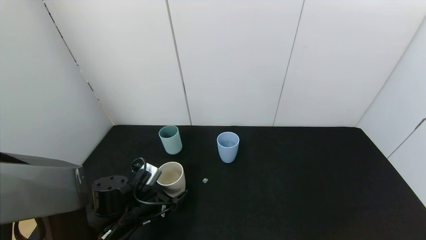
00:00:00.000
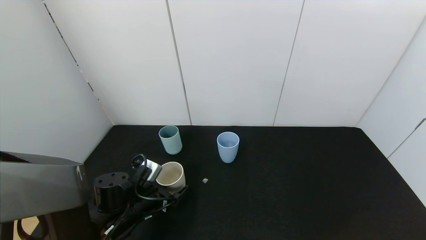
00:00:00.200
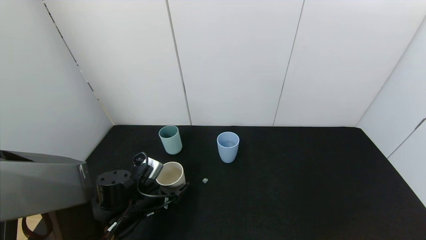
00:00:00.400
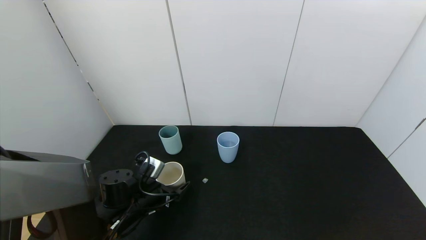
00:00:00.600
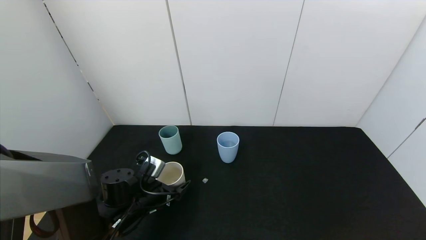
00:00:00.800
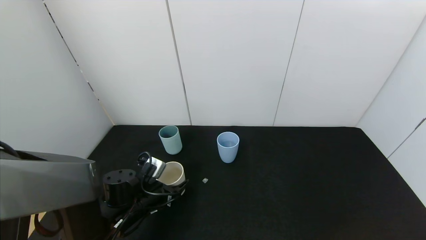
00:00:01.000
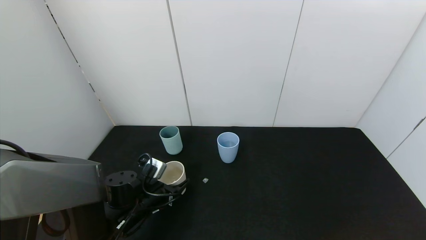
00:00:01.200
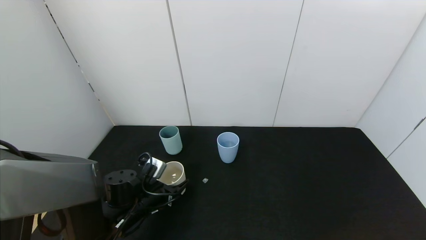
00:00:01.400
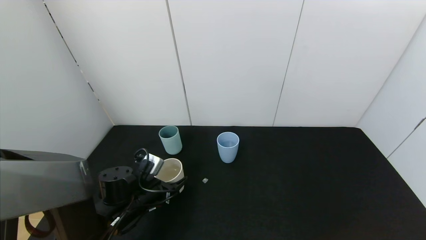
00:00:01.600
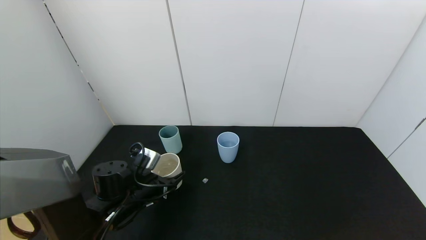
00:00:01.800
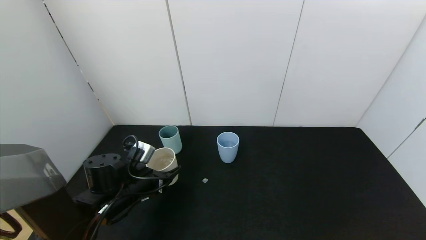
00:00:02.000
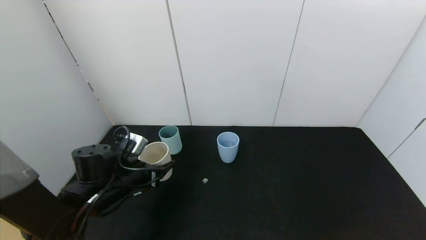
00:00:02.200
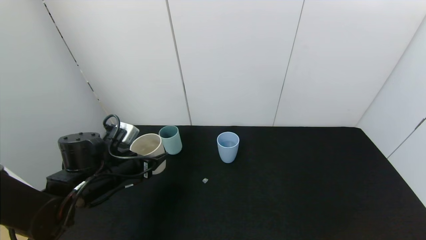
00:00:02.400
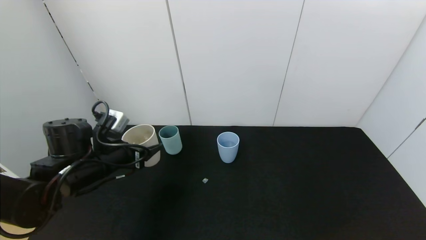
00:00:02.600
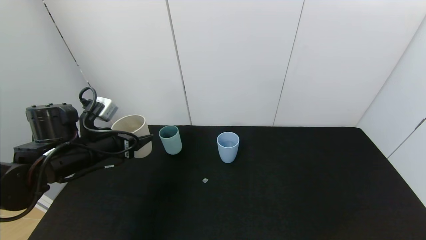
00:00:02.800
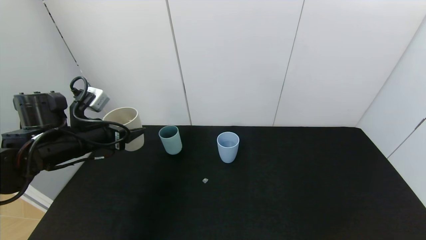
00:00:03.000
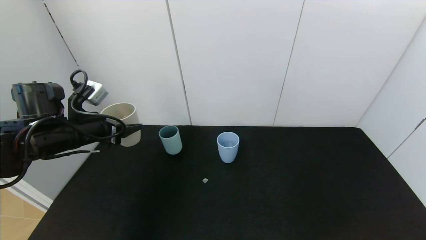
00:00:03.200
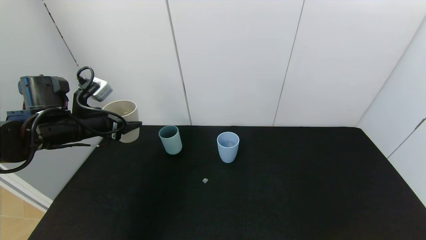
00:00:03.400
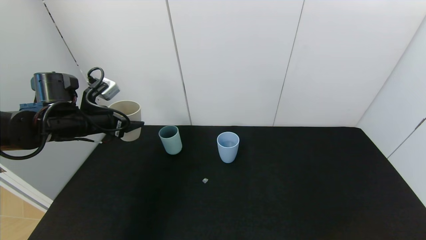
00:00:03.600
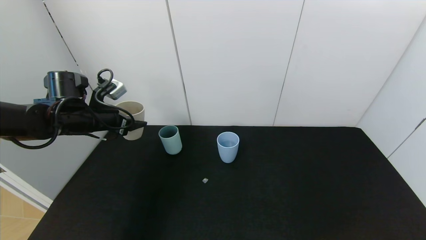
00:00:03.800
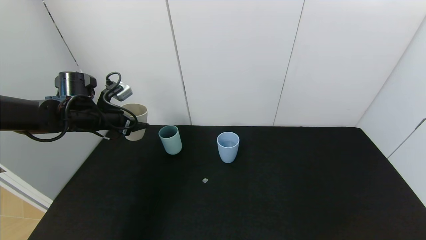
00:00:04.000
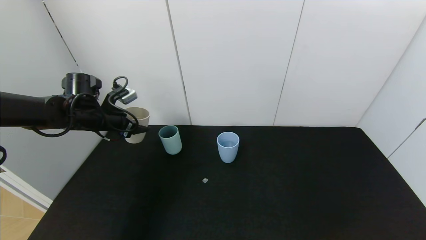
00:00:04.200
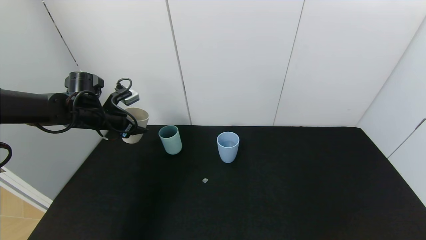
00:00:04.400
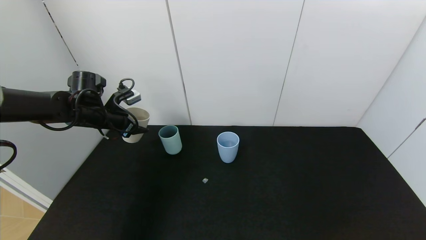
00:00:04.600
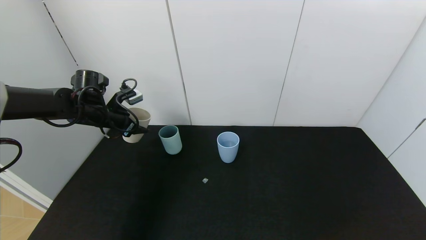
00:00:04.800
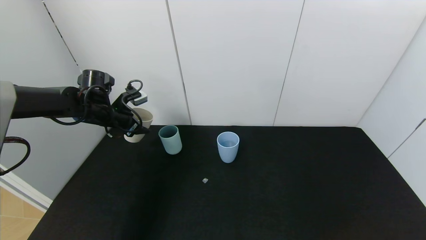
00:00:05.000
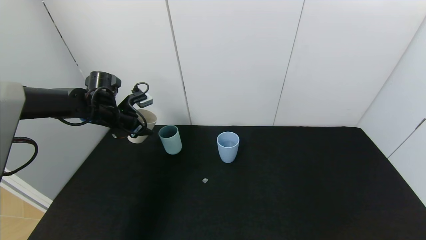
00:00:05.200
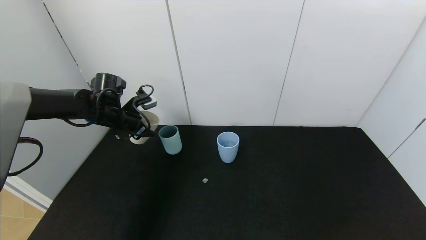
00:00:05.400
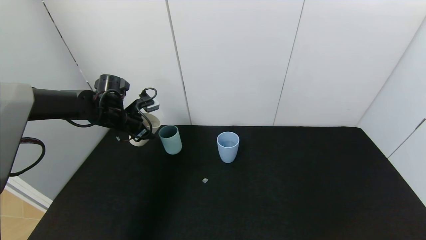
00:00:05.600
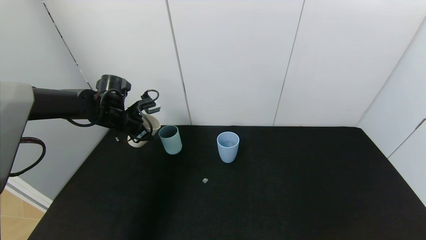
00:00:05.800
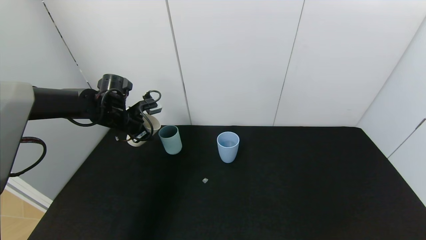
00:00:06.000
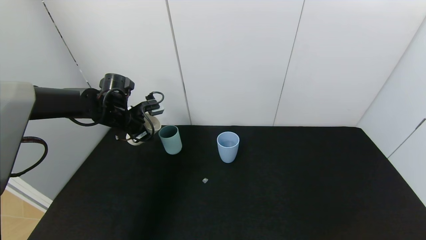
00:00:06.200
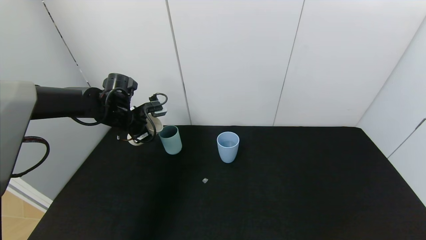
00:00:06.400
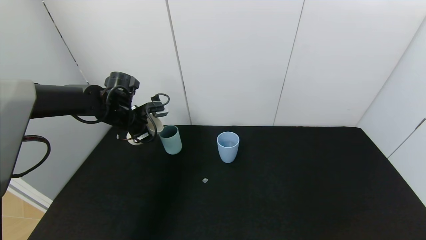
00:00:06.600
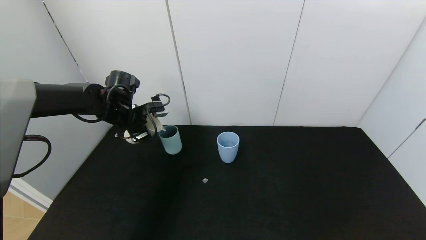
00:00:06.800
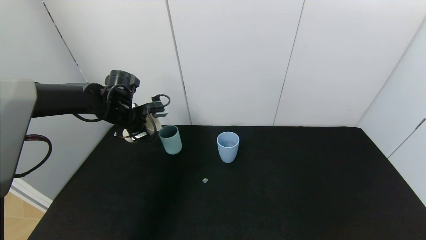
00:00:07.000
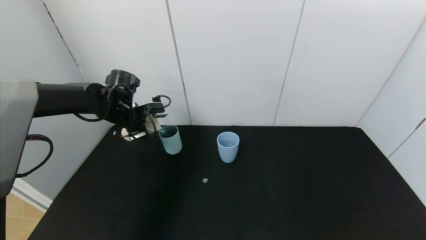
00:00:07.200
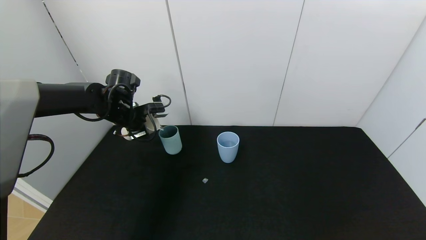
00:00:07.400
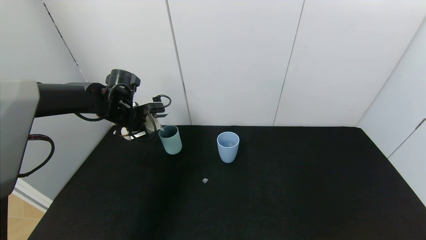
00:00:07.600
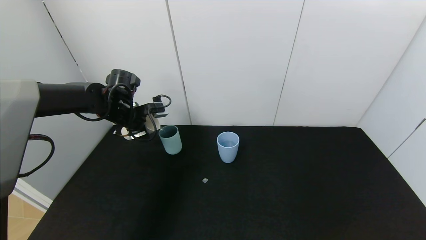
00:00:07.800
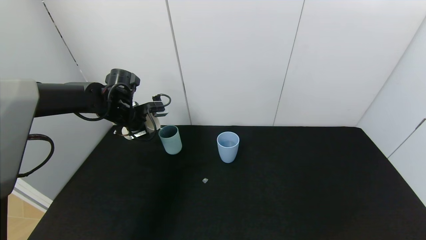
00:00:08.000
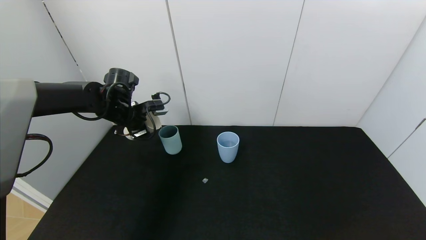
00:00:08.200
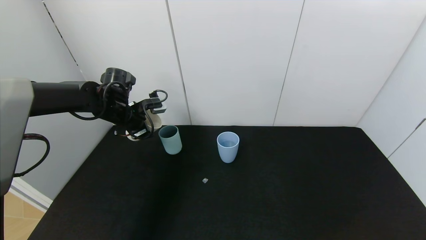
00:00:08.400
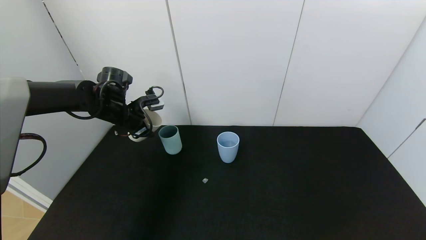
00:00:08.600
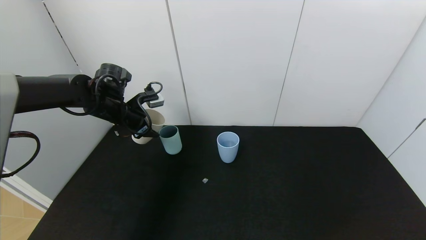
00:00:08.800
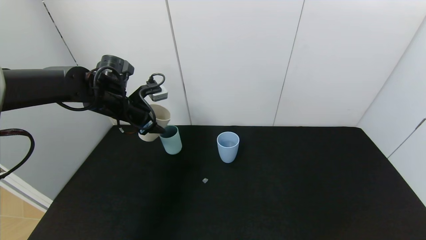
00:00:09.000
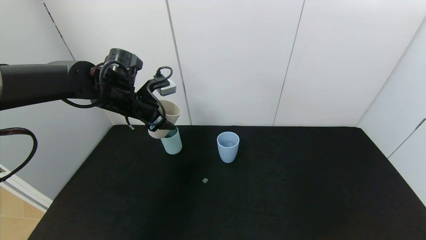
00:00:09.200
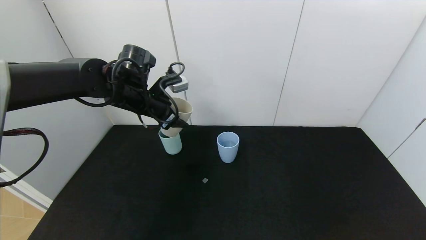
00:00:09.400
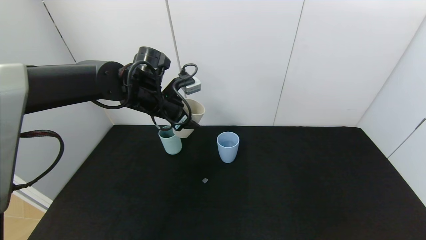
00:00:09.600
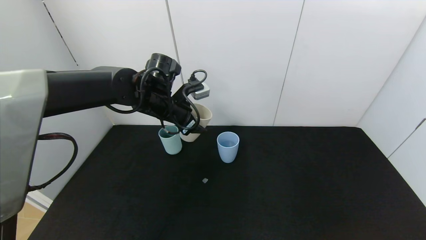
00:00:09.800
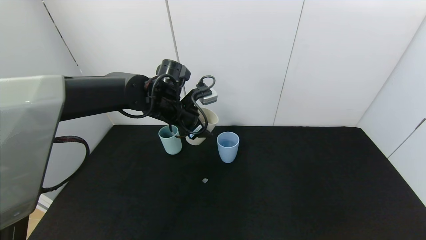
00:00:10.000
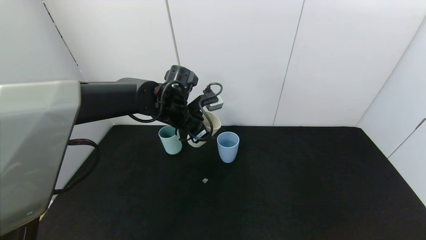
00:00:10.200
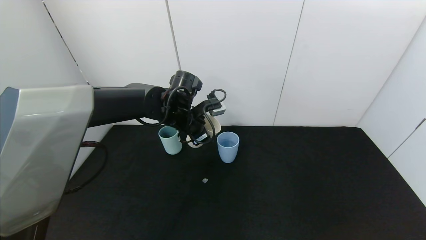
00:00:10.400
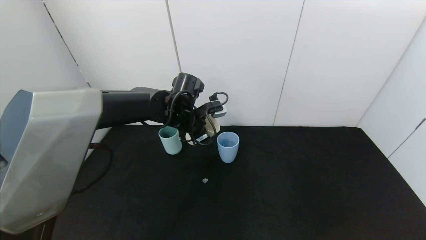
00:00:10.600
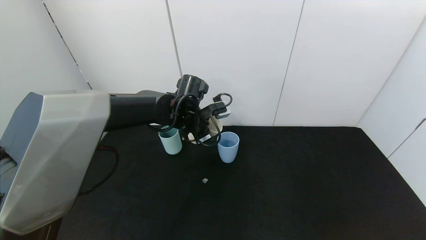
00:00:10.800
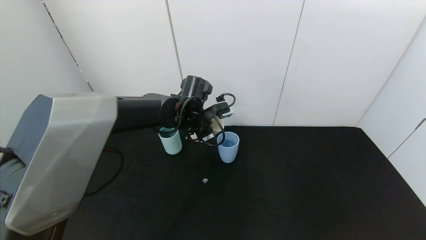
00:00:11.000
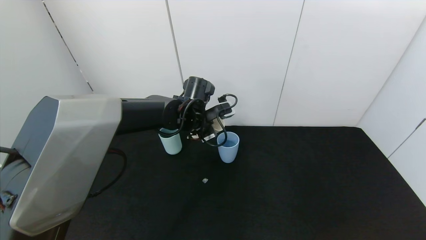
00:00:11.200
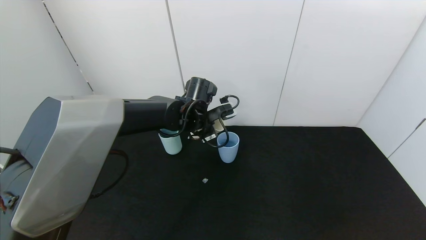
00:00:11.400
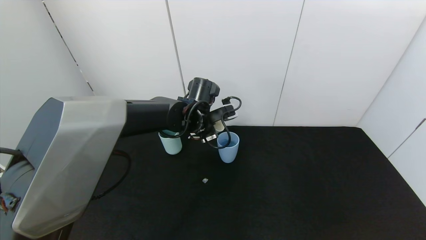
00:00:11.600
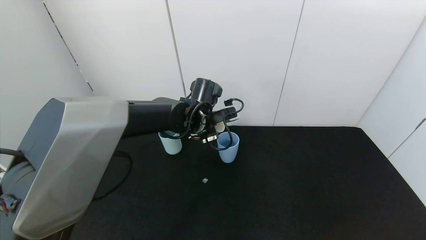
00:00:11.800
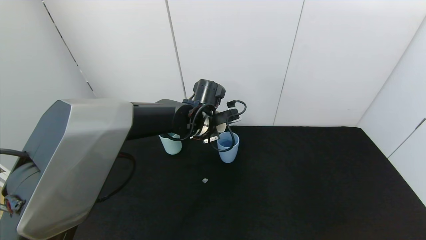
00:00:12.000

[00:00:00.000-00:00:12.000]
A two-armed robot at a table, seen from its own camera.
Task of the whole recording: use the gripper to pour the water into the other two cups on black table.
Step, 00:00:01.400 to 00:00:08.600: Pour water from white cup to green cup with the left gripper.
00:00:00.000 to 00:00:01.600: The left gripper closes up.
00:00:01.600 to 00:00:03.000: The left gripper heads upward and to the left, covering about 20 cm.
00:00:03.000 to 00:00:04.400: The left gripper shifts approximately 10 cm forward.
00:00:04.400 to 00:00:06.000: The grippers stay close to where they were, moving slightly.
00:00:06.000 to 00:00:07.600: The grippers make only small movements.
00:00:09.000 to 00:00:10.400: The left gripper travels to the right by roughly 15 cm.
00:00:10.400 to 00:00:12.000: The left gripper changes place by about 5 cm.

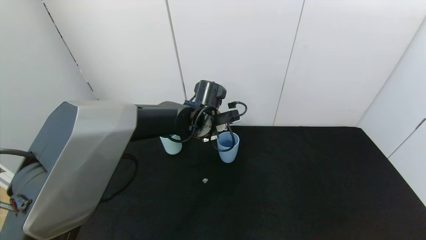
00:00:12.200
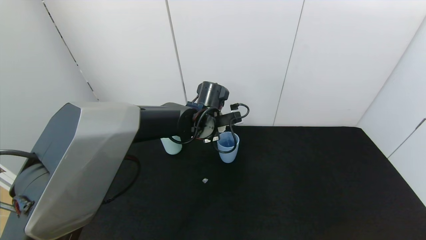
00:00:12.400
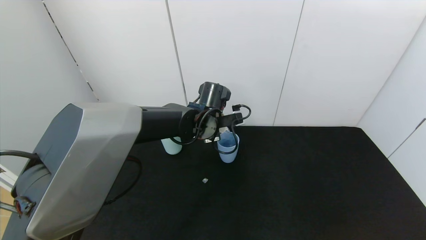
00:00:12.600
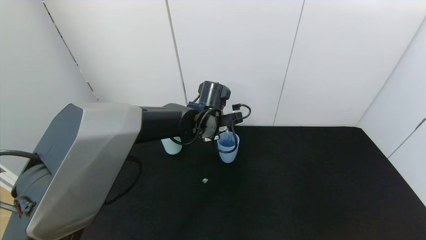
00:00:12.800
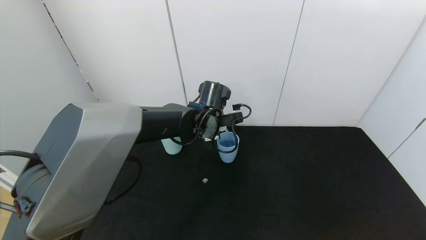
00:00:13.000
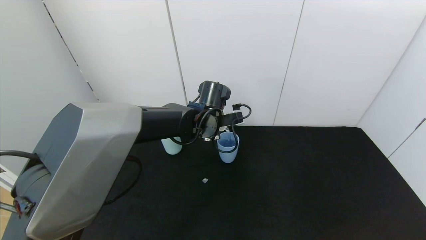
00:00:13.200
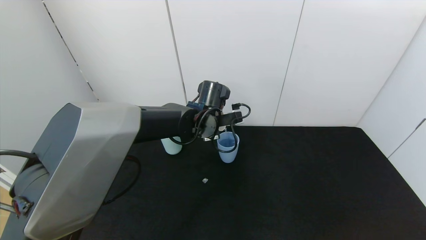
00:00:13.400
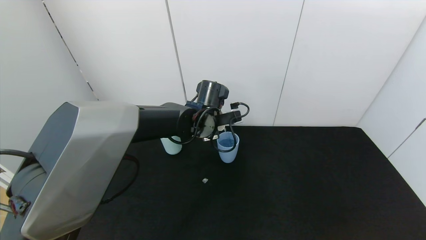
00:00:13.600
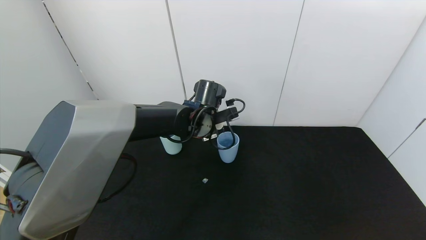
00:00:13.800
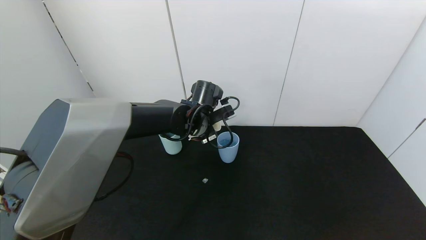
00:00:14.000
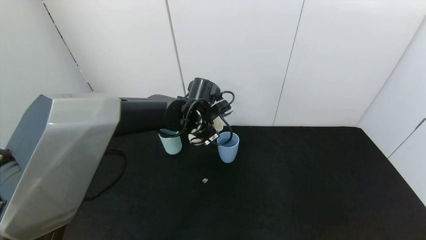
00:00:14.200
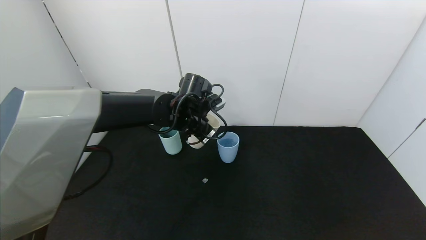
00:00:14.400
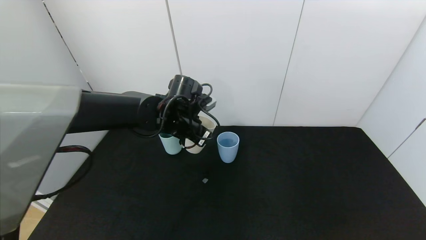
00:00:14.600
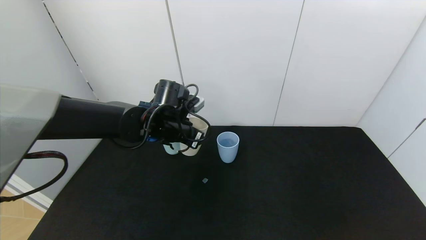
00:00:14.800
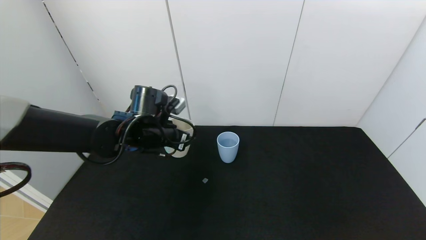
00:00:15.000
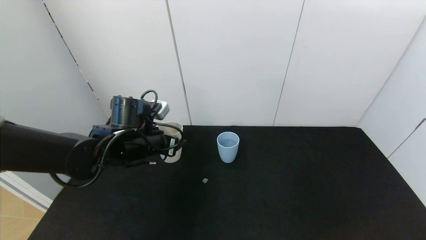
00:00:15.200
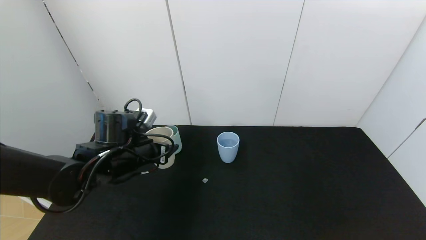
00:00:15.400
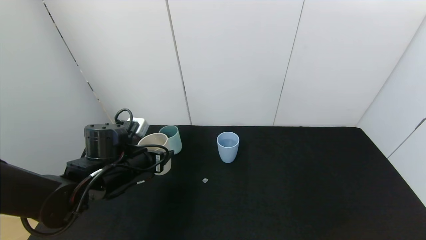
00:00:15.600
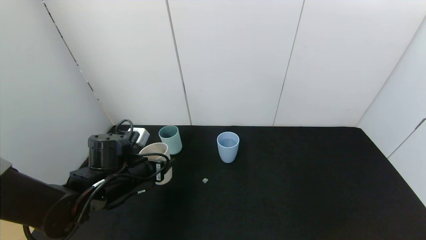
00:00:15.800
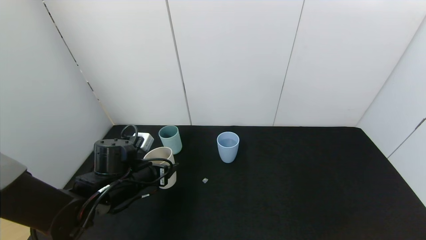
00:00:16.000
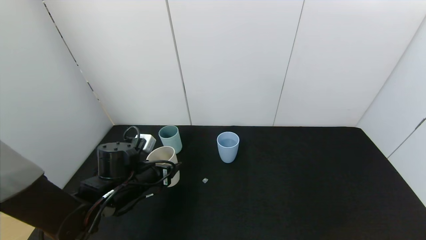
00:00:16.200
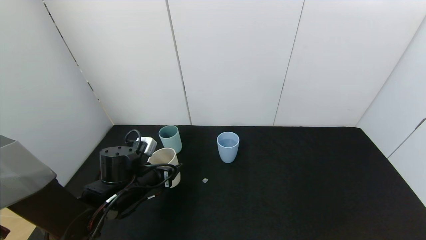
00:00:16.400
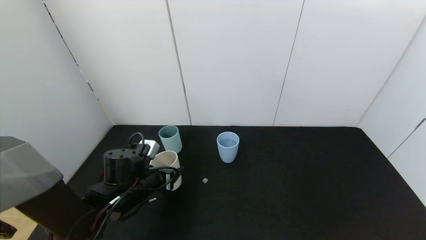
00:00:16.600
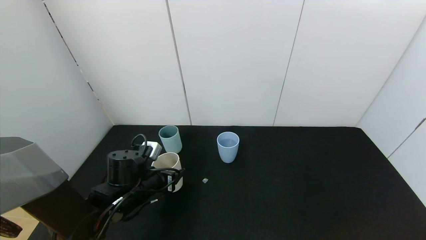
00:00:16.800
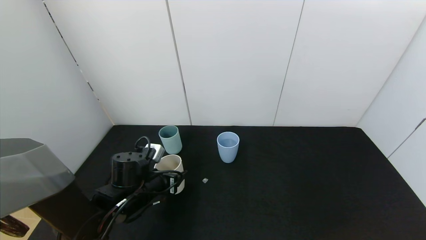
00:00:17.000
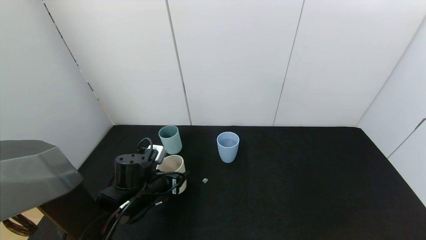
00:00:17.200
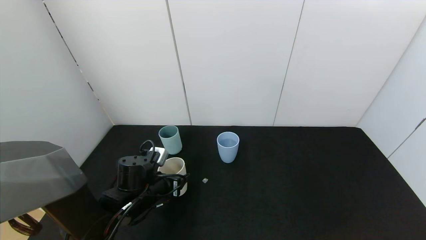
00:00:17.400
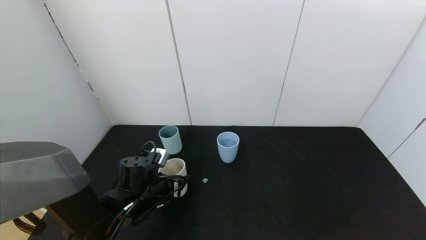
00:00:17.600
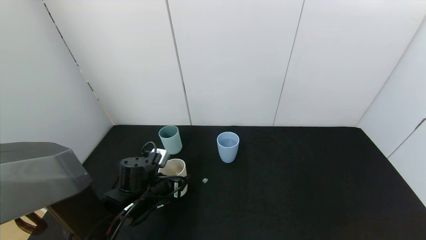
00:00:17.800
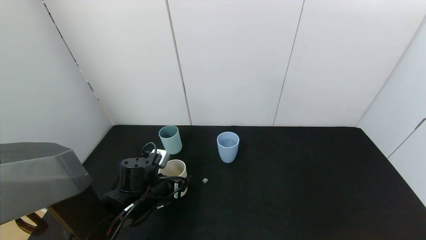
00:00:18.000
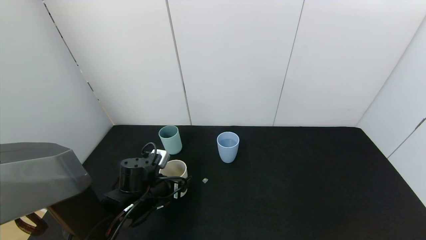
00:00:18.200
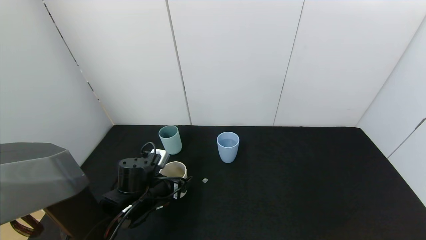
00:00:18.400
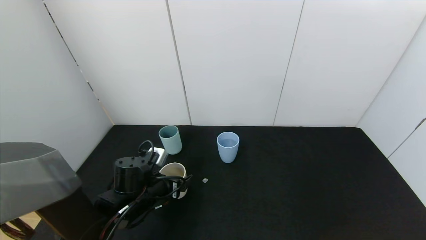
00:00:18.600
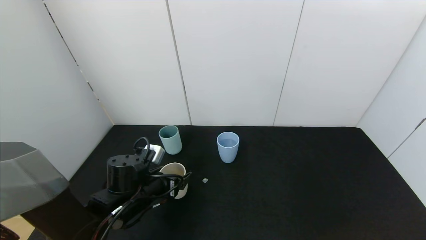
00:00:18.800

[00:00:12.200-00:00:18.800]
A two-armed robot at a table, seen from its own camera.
Task of the whole recording: use the gripper to pour the water into the other two cups on black table.
00:00:12.200 to 00:00:13.800: There are only small adjustments of the grippers.
00:00:13.800 to 00:00:15.400: The left gripper moves to the left and backward, approximately 20 cm.
00:00:15.400 to 00:00:17.200: The left gripper is displaced downward by roughly 10 cm.
00:00:17.200 to 00:00:18.800: The left gripper opens.
